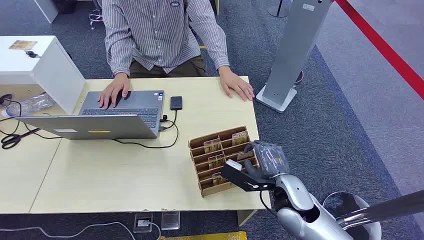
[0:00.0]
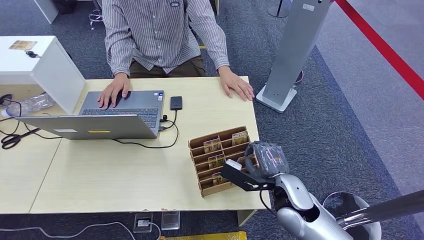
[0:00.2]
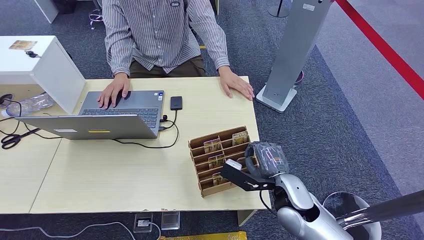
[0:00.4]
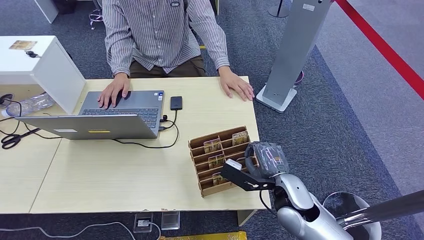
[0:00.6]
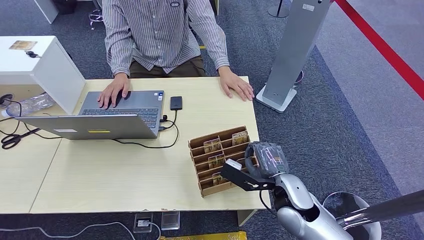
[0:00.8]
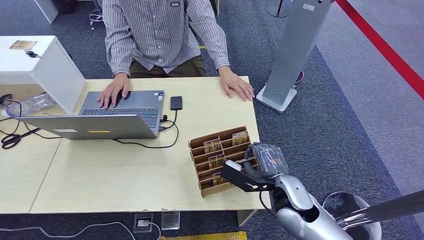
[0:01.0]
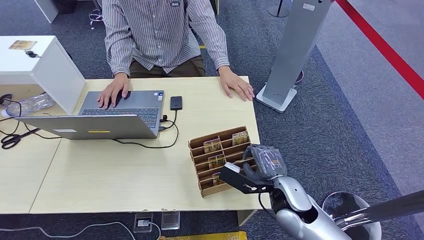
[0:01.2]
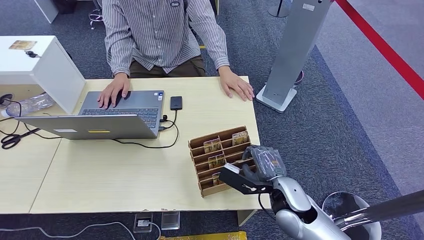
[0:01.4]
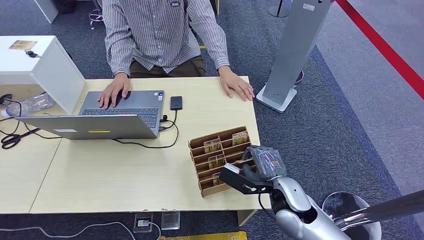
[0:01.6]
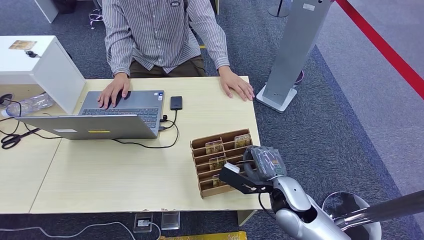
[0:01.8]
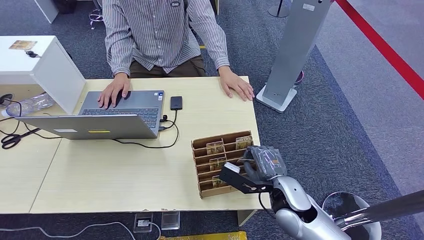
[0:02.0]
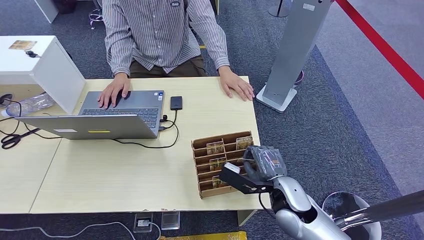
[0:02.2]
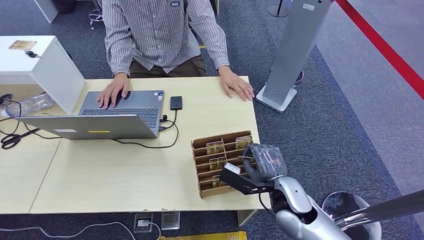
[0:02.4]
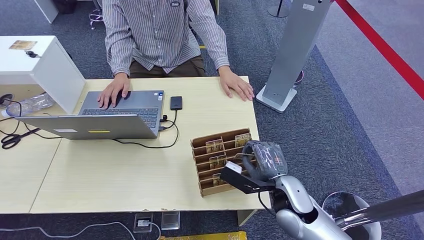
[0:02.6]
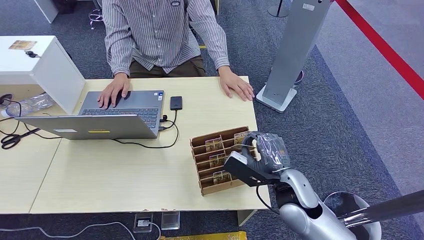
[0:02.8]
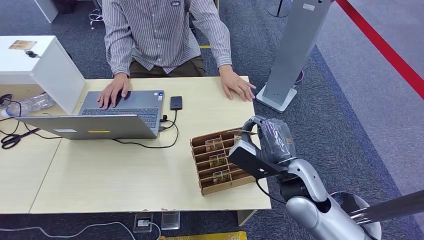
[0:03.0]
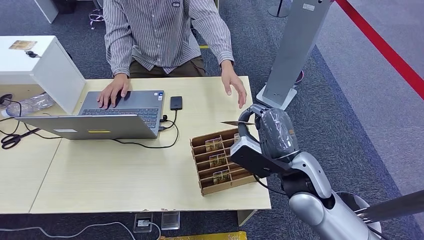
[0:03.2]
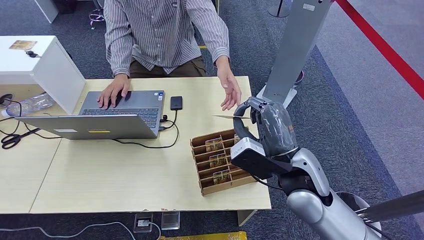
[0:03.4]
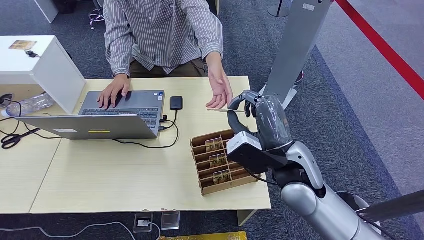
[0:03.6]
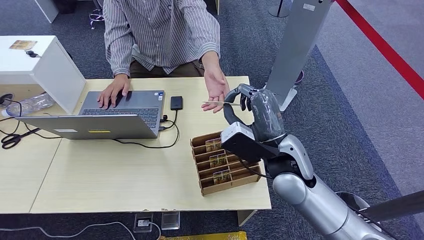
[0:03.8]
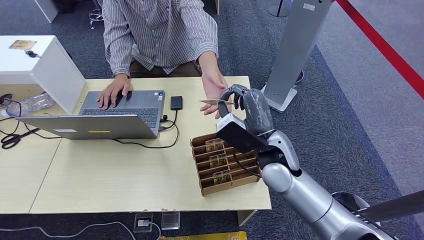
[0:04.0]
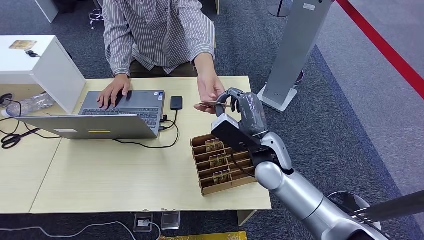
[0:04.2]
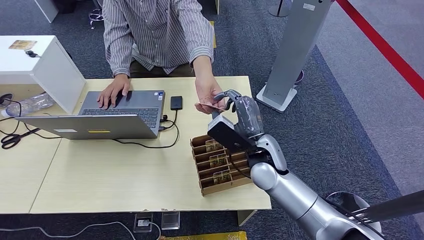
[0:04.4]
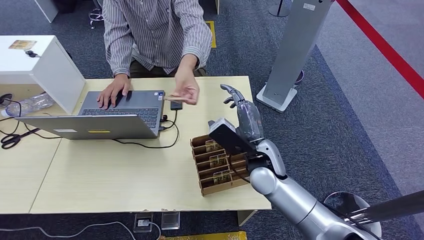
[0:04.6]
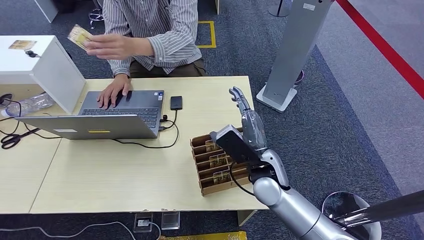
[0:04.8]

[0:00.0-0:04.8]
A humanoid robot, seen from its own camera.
Step, 0:00.0 to 0:02.8: Pick up the room card from the card holder.
Step, 0:03.6 to 0:04.8: Hand the room card to the target.
0:01.6 to 0:03.2: The right hand moves upward, approximately 10 cm.
0:03.2 to 0:04.8: The right hand heads downward and to the left, covering some 10 cm.

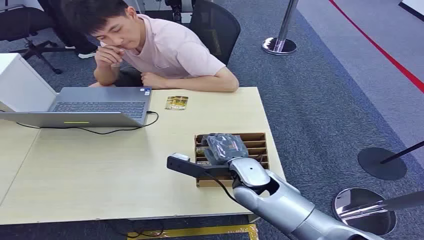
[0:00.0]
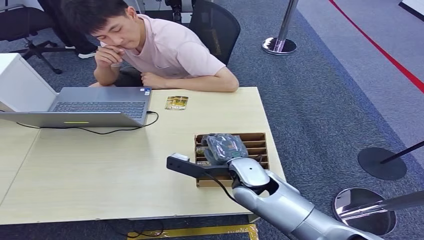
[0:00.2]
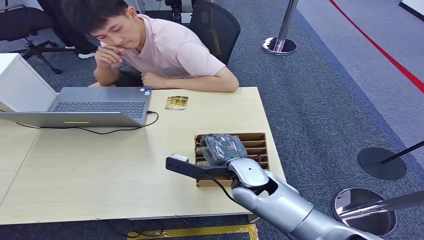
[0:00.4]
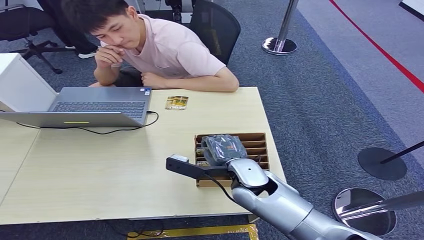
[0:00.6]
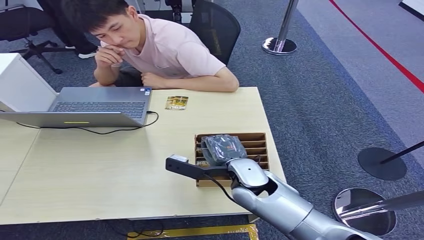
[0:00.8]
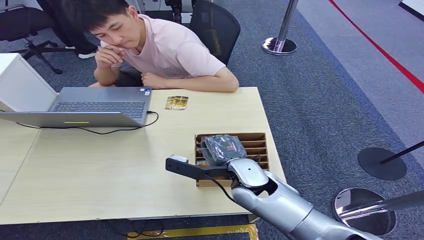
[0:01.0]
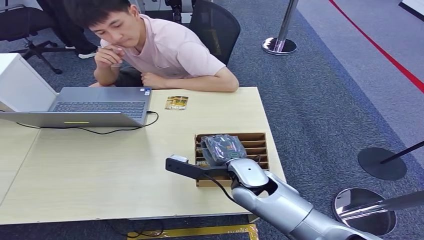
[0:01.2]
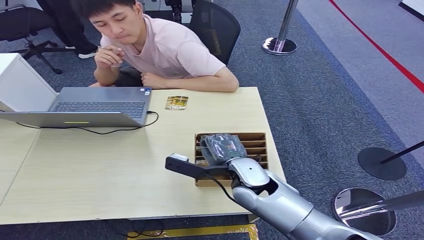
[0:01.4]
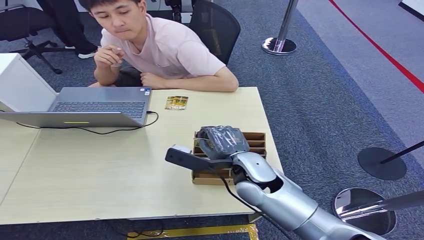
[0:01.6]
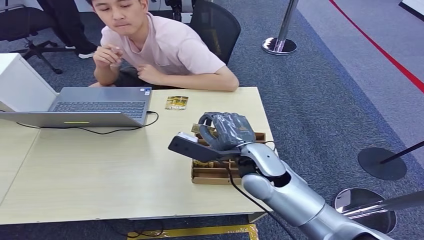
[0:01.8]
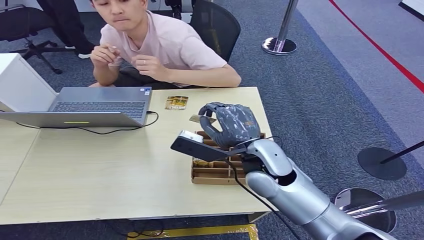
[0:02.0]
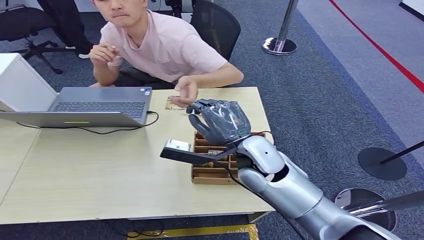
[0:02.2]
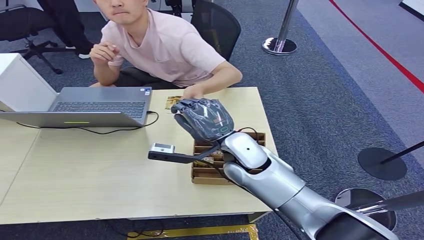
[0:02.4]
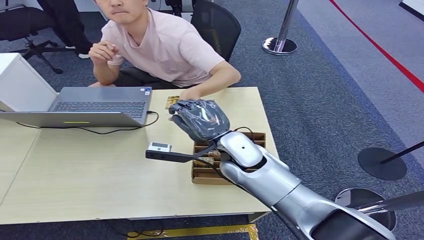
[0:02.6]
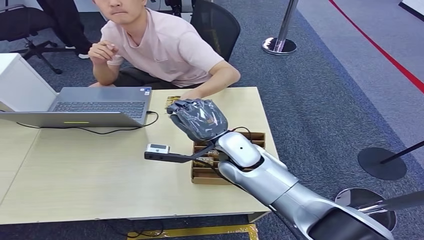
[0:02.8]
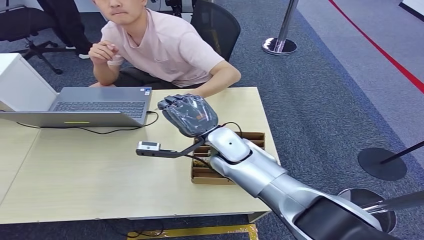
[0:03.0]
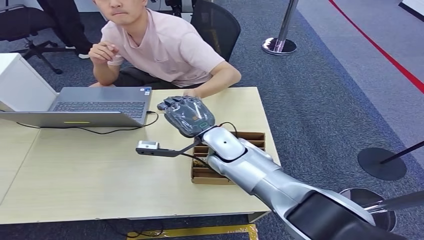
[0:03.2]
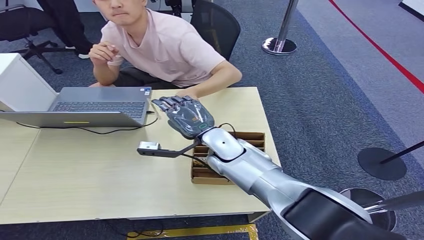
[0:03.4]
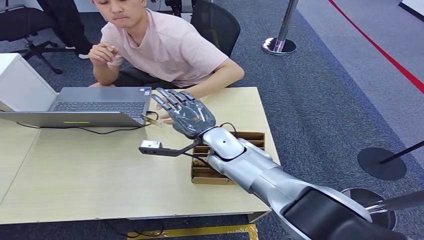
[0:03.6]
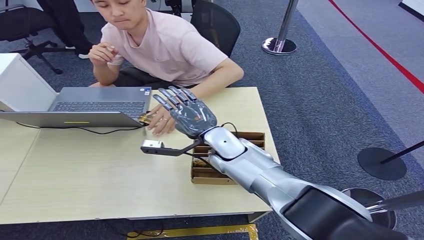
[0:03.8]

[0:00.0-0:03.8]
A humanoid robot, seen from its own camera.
Step, 0:00.0 to 0:01.6: Pick up the room card from the card holder.
Step, 0:02.0 to 0:03.8: Hand the room card to the target.
0:01.2 to 0:02.6: The right hand moves upward and forward, approximately 10 cm.
0:02.6 to 0:03.8: The right hand shifts by some 5 cm.
